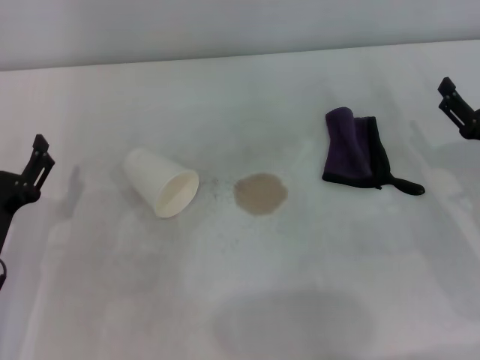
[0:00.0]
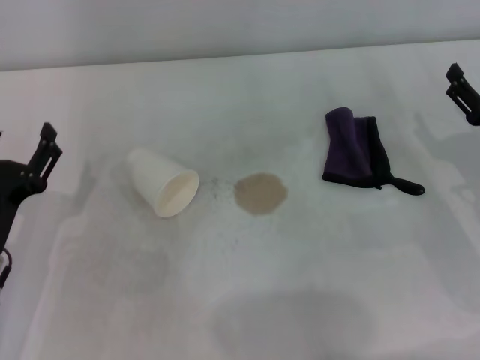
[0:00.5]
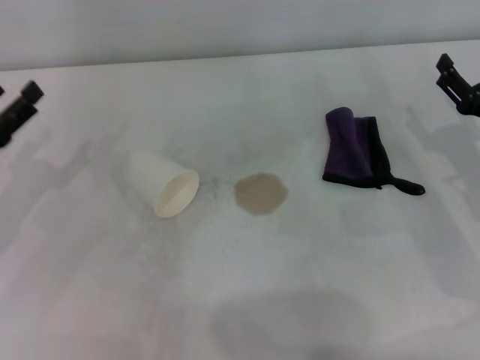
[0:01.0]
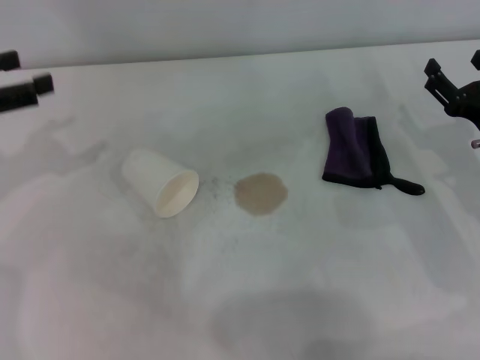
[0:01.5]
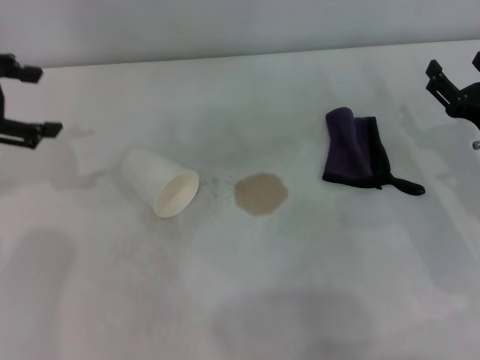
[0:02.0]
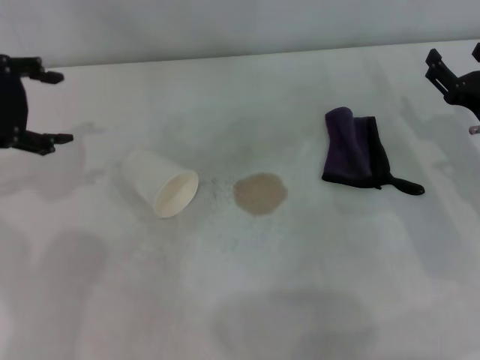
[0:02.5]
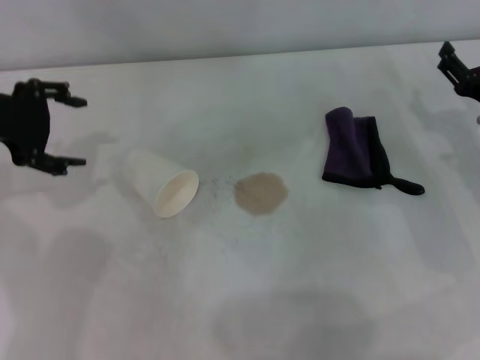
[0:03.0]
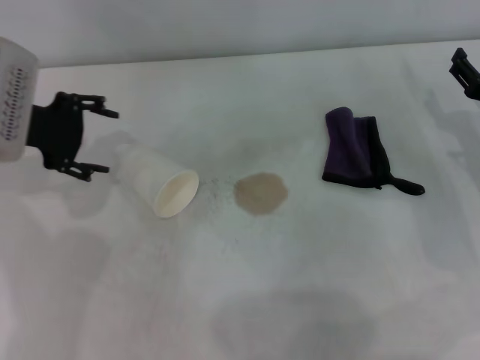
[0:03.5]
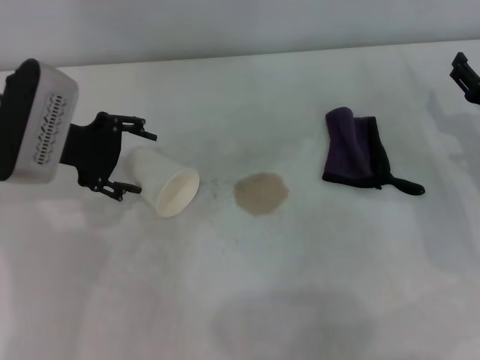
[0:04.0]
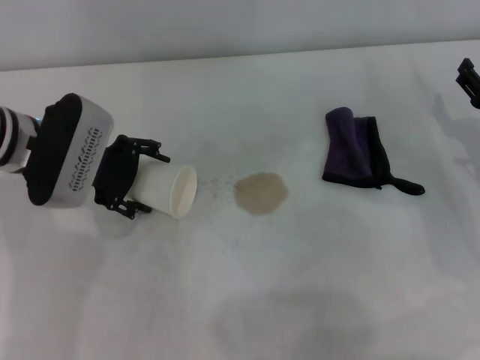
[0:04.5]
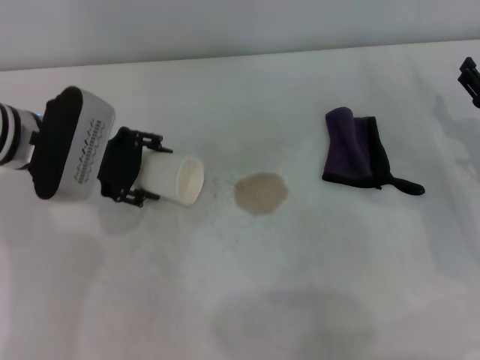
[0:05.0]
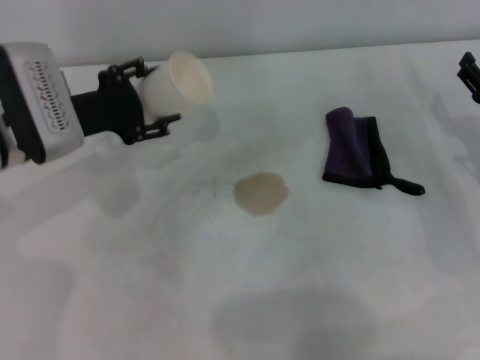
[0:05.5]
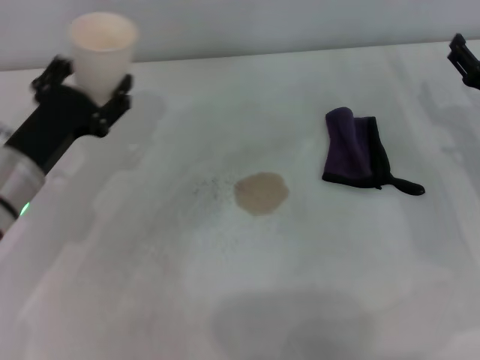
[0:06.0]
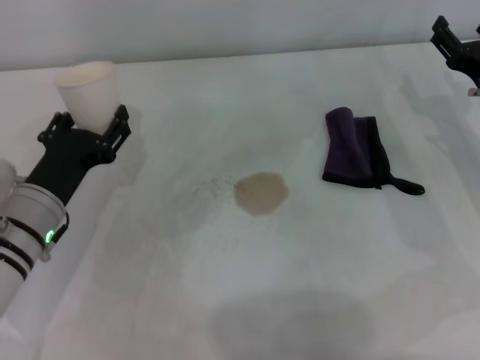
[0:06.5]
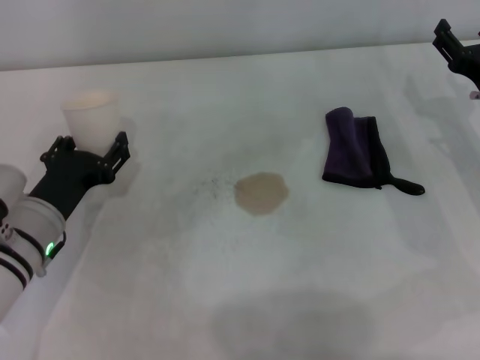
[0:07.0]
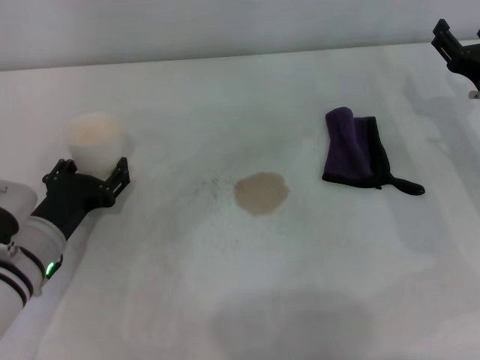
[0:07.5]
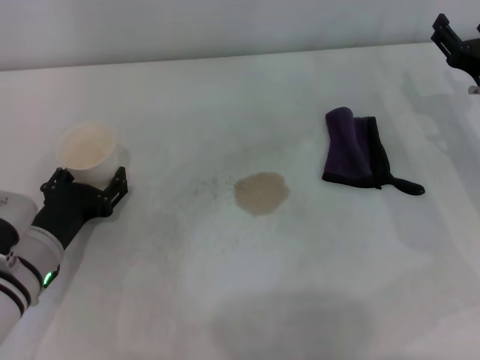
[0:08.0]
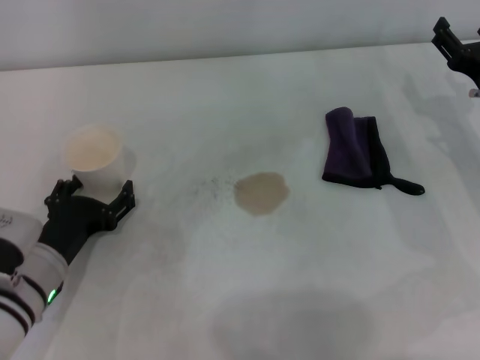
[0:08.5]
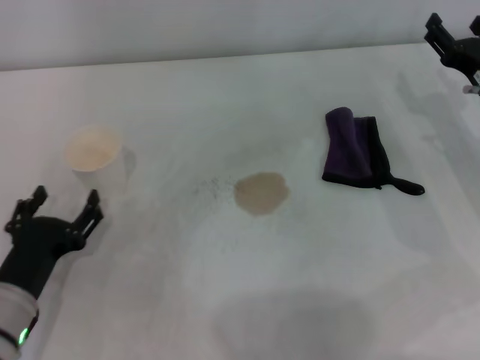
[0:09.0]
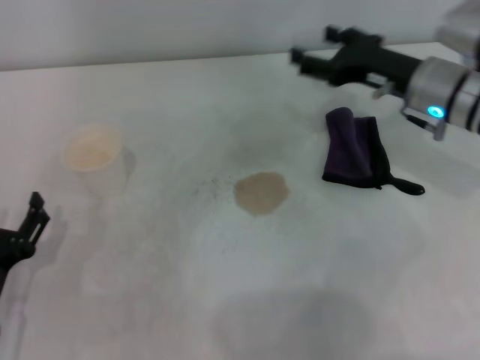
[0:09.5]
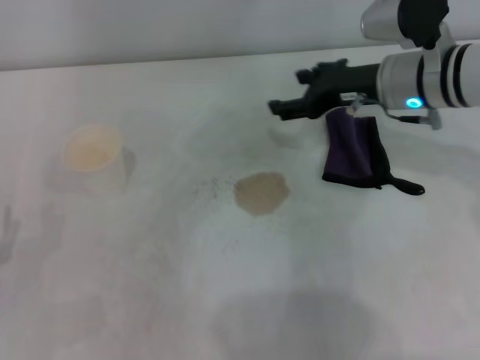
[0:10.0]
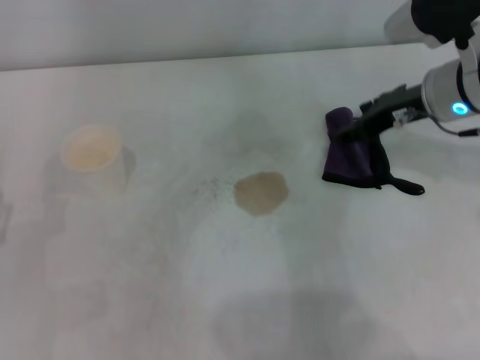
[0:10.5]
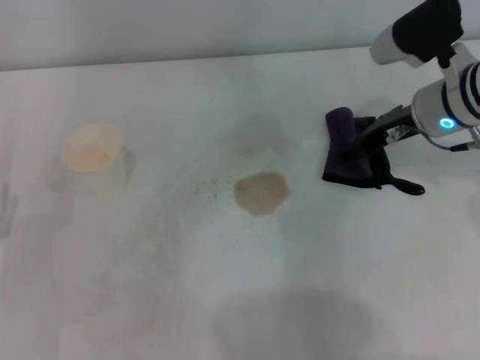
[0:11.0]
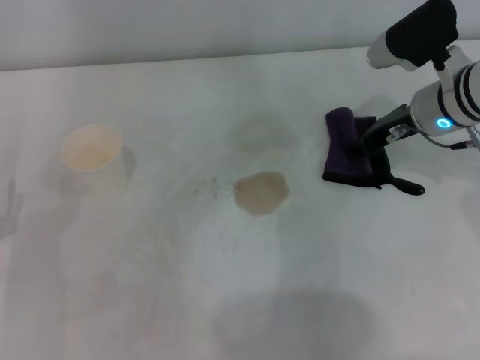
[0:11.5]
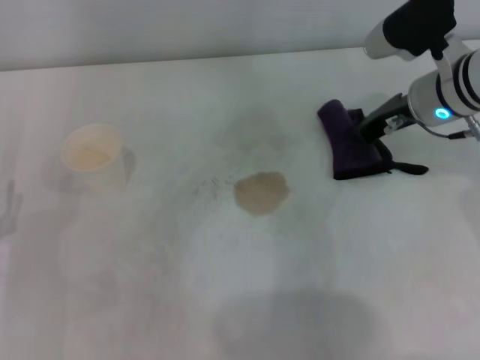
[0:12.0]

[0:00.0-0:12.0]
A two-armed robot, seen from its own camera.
Step, 0:00.0 to 0:04.5: Grasp the paper cup with the left gripper.
Step, 0:05.0 to 0:08.0: Stand the paper cup upright with the left gripper.
Step, 0:09.0 to 0:11.5: Grasp the rag with the right gripper.
0:00.0 to 0:02.0: The left gripper goes some 25 cm upward and forward.
0:02.0 to 0:04.0: The left gripper goes roughly 15 cm to the right and downward.
0:04.0 to 0:06.0: The left gripper travels downward and backward by roughly 10 cm, and closes its fingers.
0:06.0 to 0:08.0: The left gripper shifts some 5 cm downward.
0:08.0 to 0:10.0: The left gripper heads backward and to the left, covering some 10 cm, and opens its fingers, while the right gripper heads to the left, upward and forward, covering some 15 cm.
0:10.0 to 0:12.0: The right gripper closes its fingers.

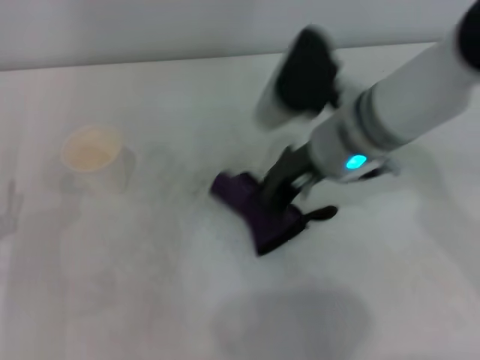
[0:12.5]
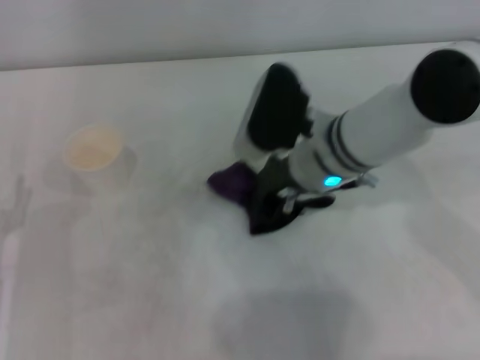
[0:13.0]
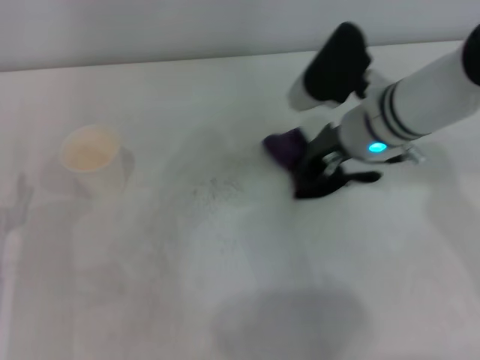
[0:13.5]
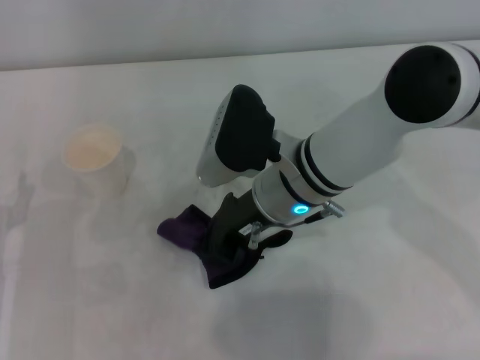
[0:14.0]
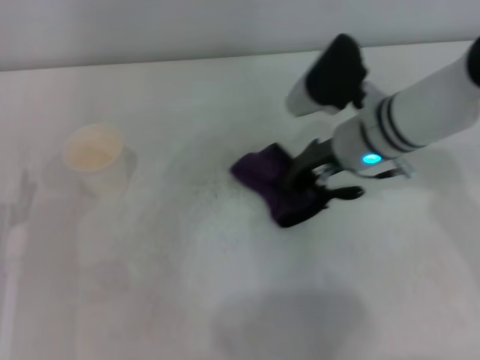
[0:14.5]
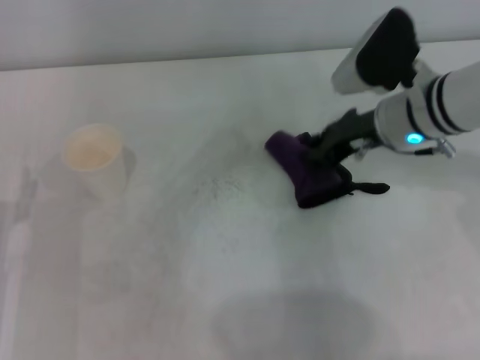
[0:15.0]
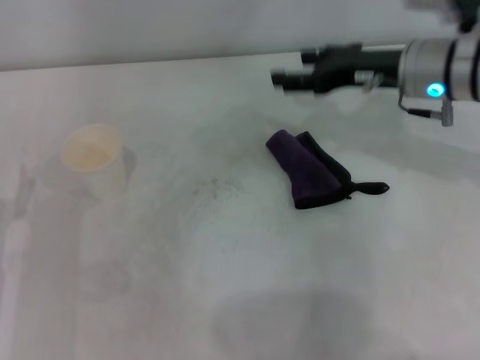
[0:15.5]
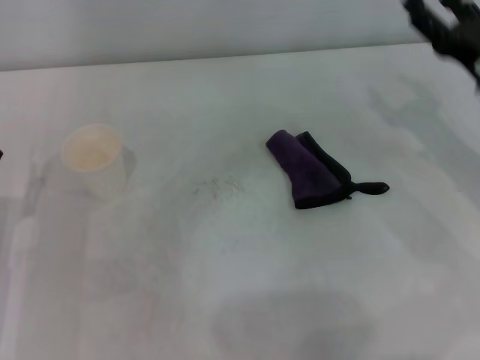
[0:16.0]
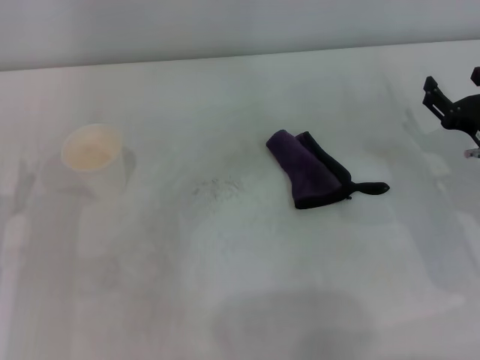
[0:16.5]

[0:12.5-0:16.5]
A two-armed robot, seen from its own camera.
Step, 0:12.5 to 0:14.0: Wipe the stains off the table with the right gripper.
0:12.5 to 0:14.5: The right gripper goes left and right, some 10 cm each way, reversing 2 times.
0:14.5 to 0:16.5: The right gripper heads to the right, backward and downward, covering approximately 20 cm, and opens.

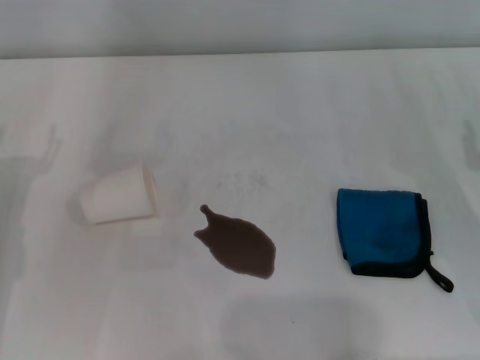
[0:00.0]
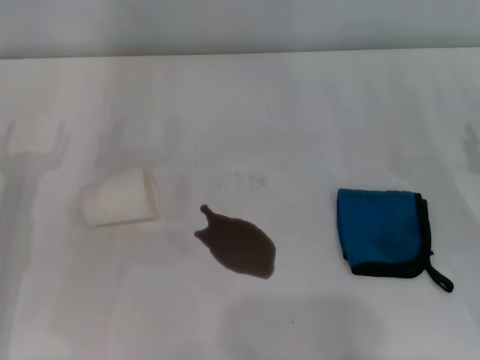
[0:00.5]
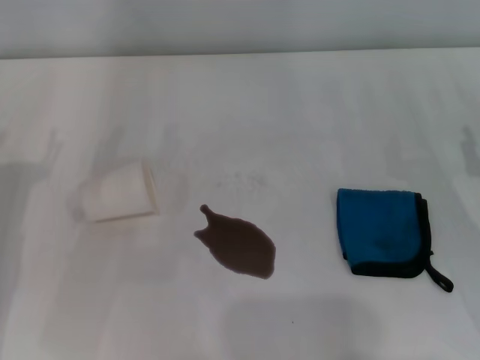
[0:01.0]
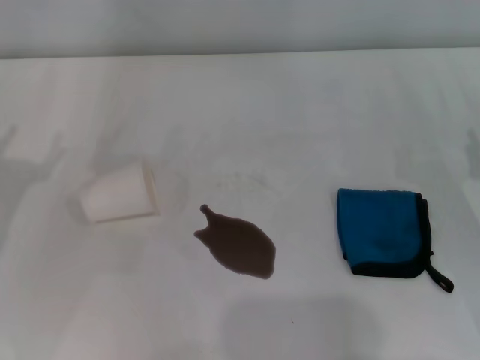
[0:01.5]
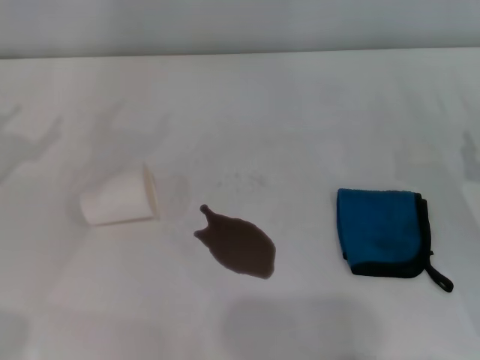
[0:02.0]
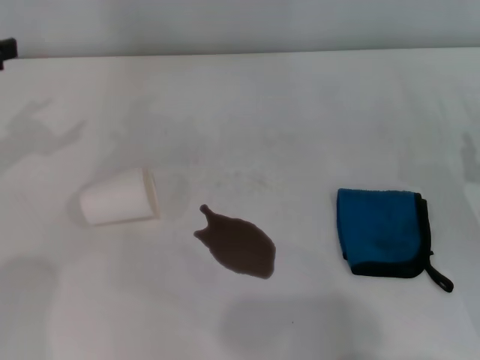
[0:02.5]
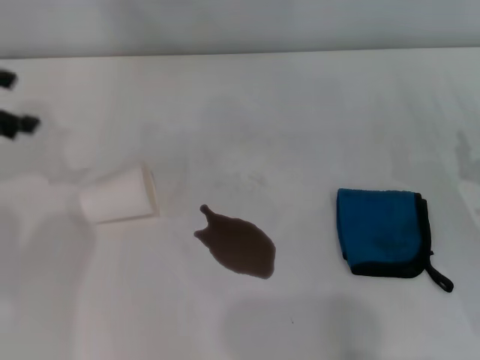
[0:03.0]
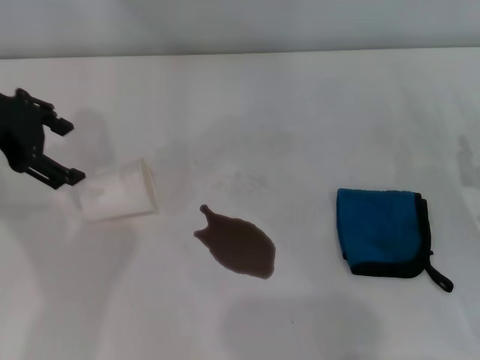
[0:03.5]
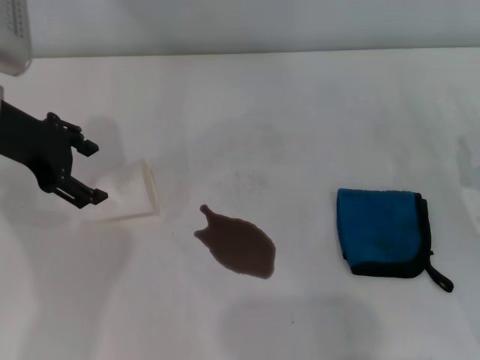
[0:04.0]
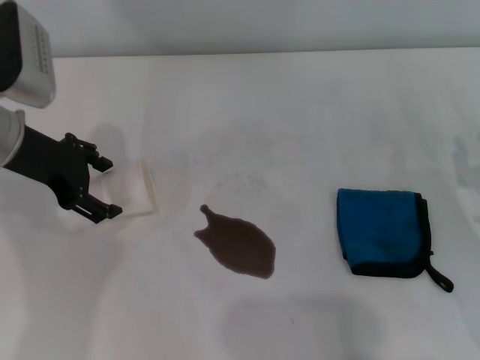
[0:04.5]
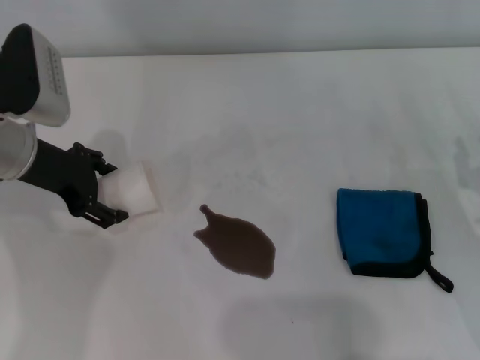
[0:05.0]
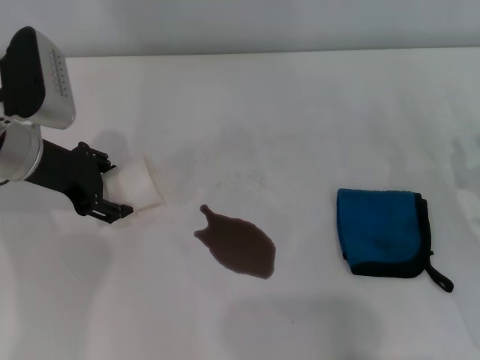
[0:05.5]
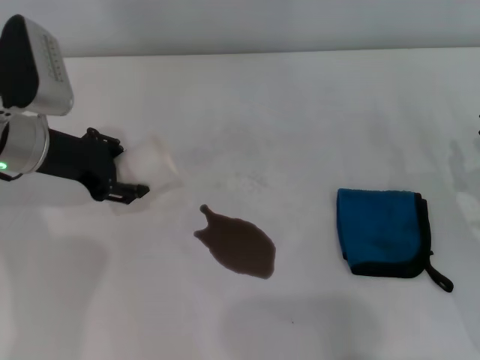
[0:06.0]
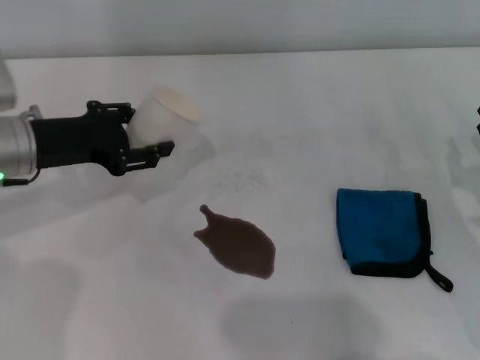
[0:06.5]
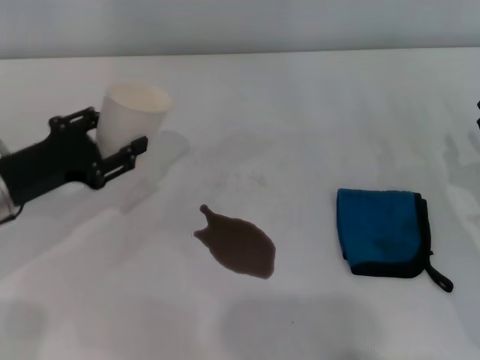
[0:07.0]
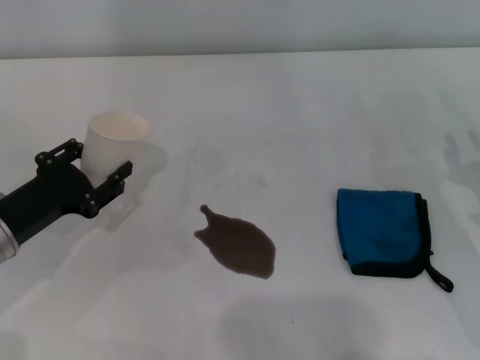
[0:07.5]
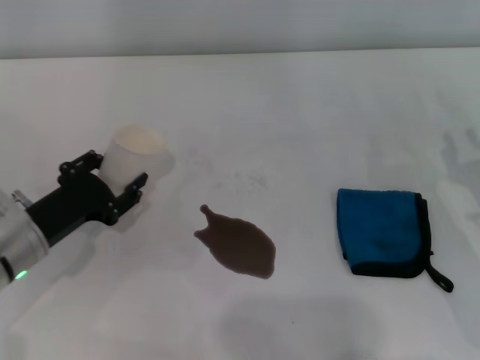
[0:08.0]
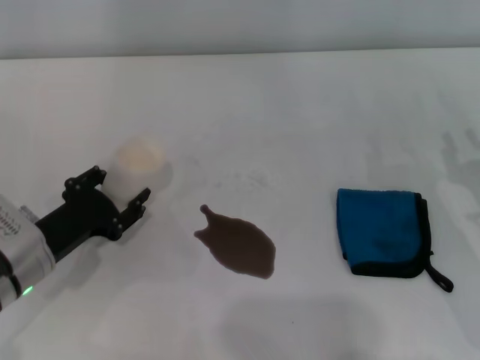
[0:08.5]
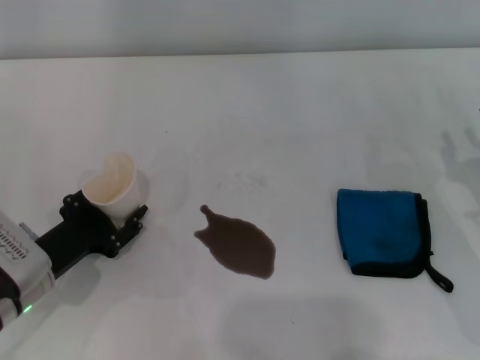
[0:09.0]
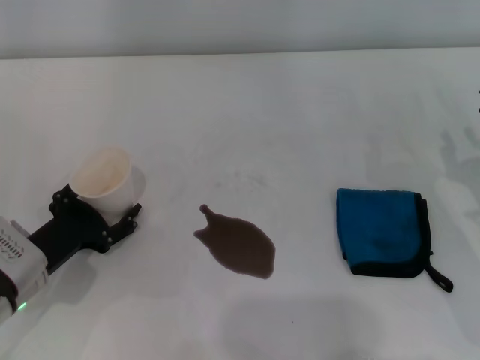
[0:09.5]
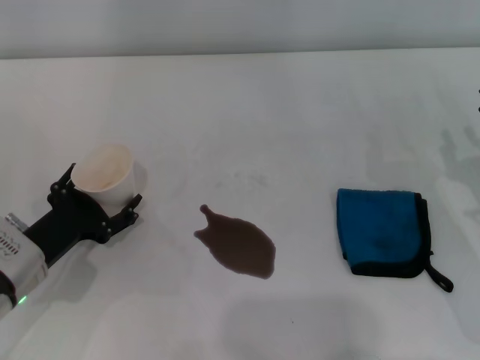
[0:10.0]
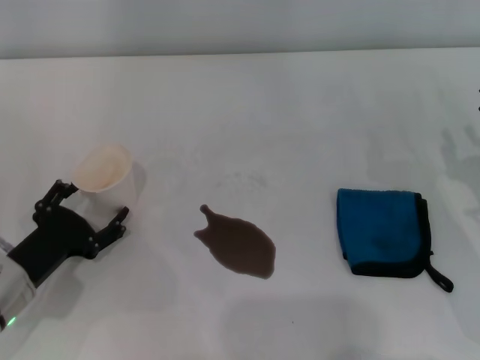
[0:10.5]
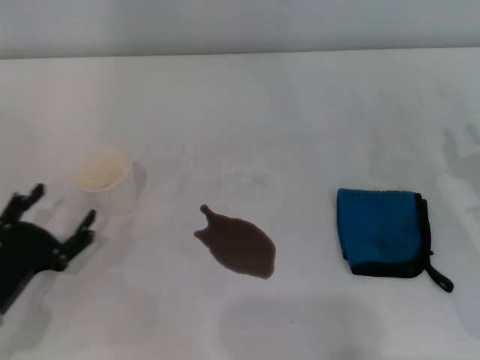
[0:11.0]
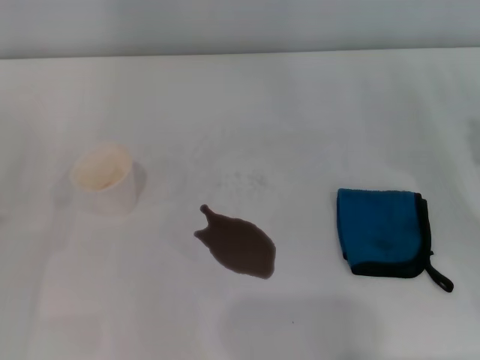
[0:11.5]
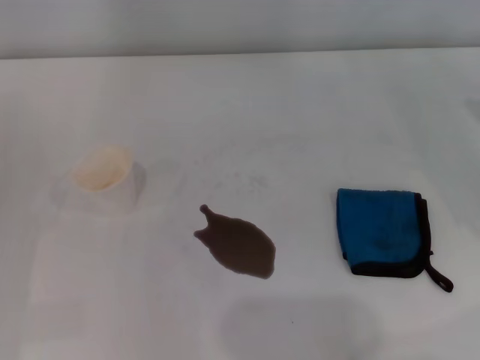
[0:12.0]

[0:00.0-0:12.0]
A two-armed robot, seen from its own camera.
Step, 0:00.0 to 0:05.5: Grasp the paper cup with the left gripper.
Step, 0:06.0 to 0:10.0: Stand the paper cup upright with the left gripper.
0:02.0 to 0:04.0: The left gripper goes roughly 15 cm to the right, upward and forward.
0:04.0 to 0:06.0: The left gripper goes approximately 5 cm downward, and closes up.
0:06.0 to 0:08.0: The left gripper moves downward and backward, some 15 cm.
0:08.0 to 0:10.0: The left gripper opens its fingers.
0:10.0 to 0:12.0: The left gripper heads to the left and backward, covering about 15 cm.
